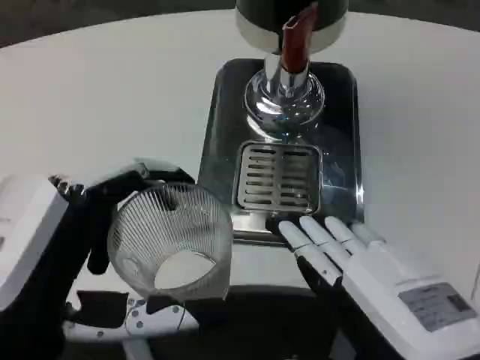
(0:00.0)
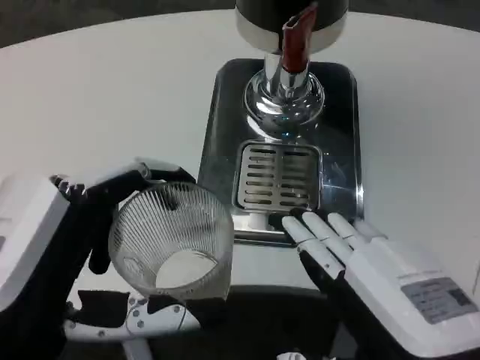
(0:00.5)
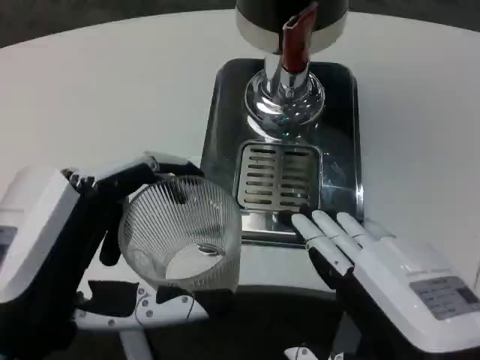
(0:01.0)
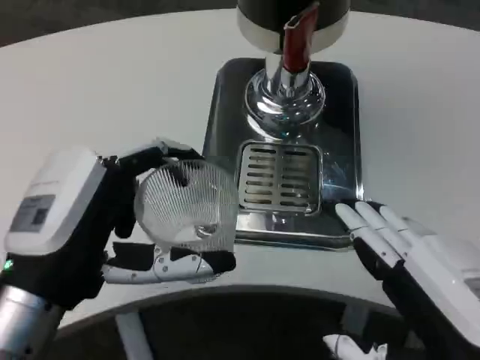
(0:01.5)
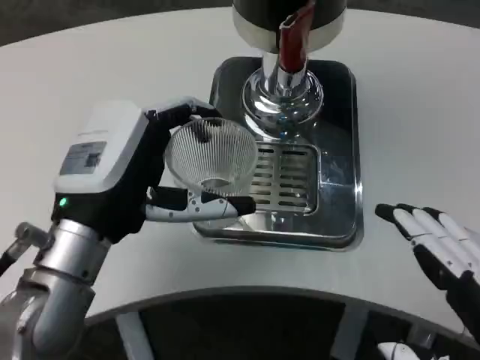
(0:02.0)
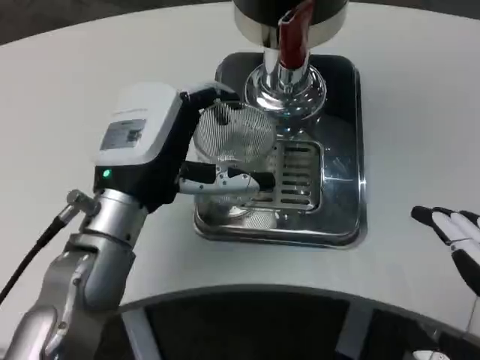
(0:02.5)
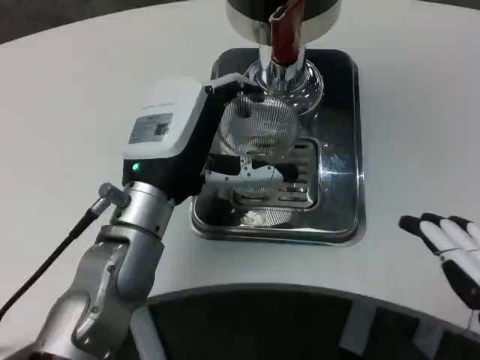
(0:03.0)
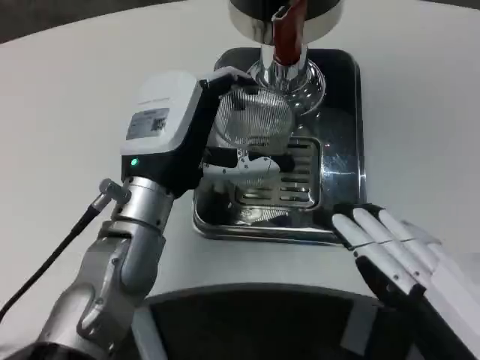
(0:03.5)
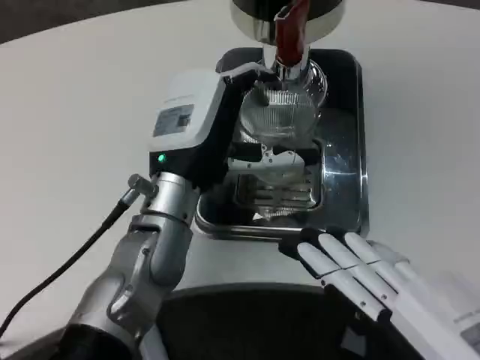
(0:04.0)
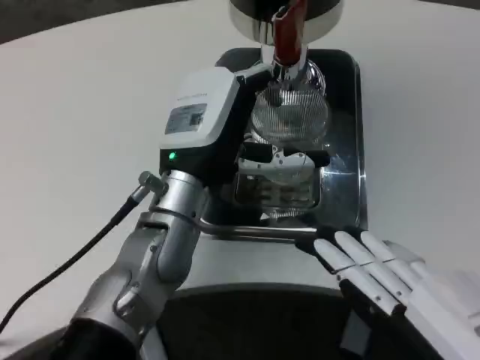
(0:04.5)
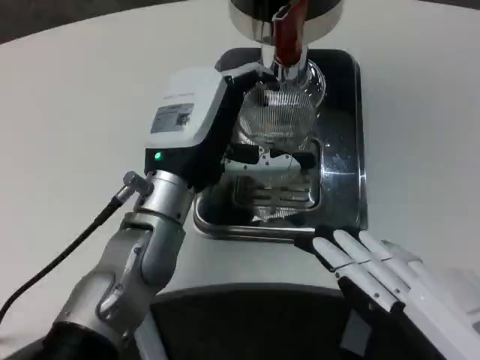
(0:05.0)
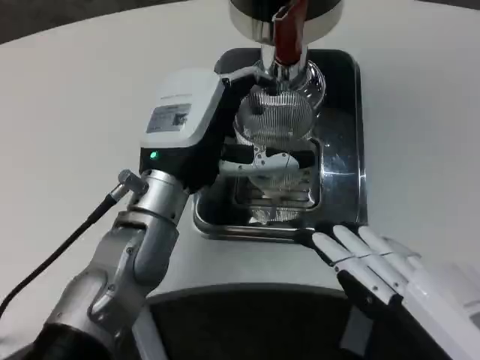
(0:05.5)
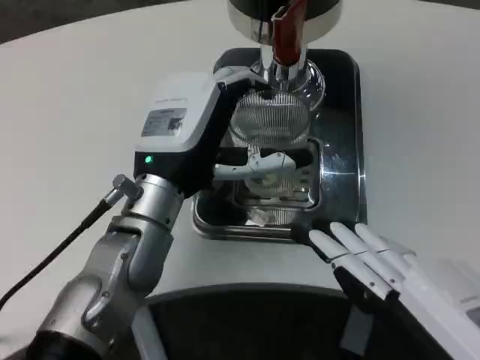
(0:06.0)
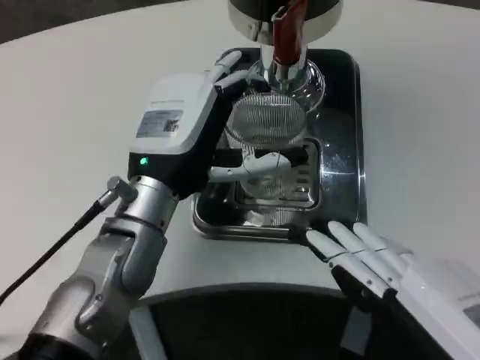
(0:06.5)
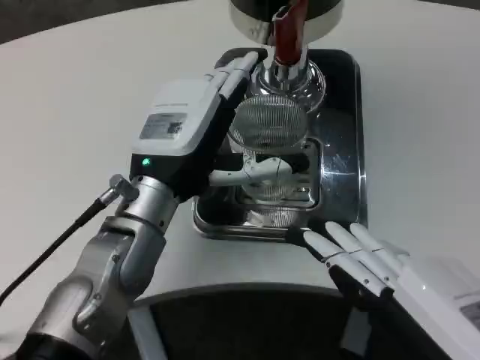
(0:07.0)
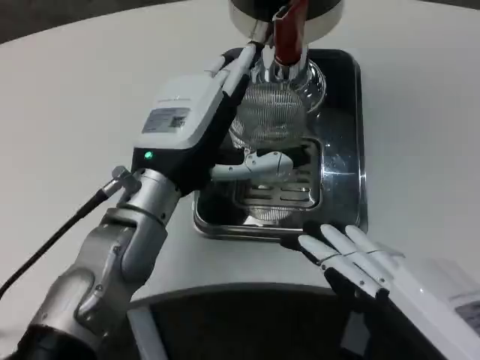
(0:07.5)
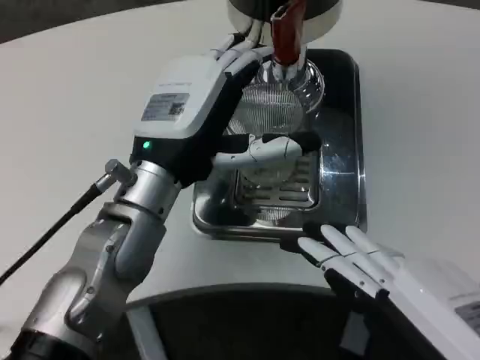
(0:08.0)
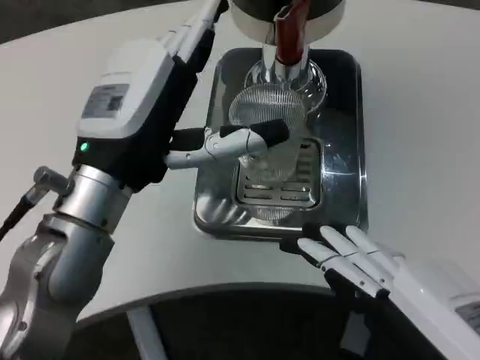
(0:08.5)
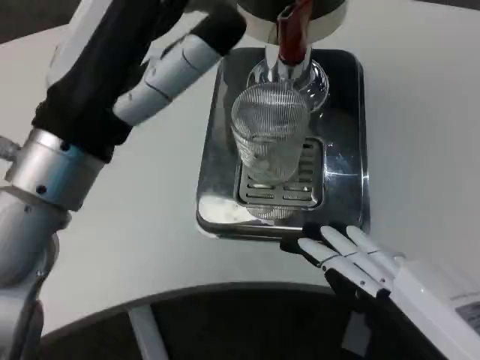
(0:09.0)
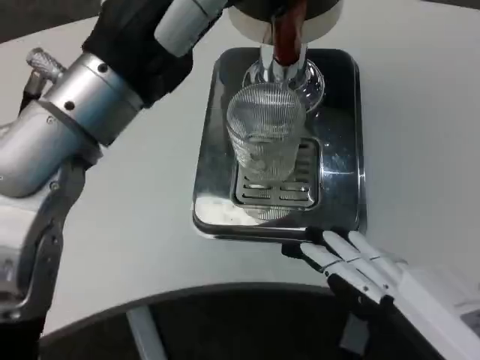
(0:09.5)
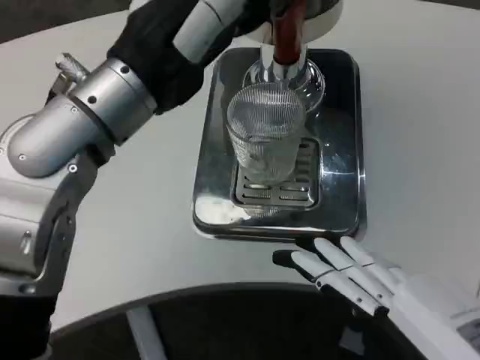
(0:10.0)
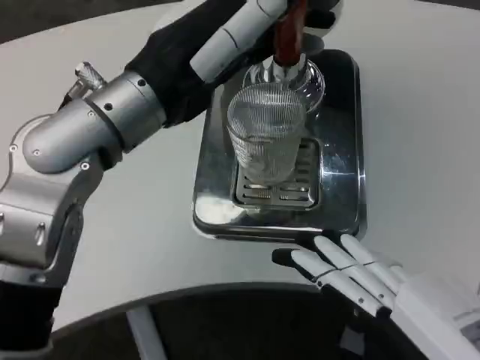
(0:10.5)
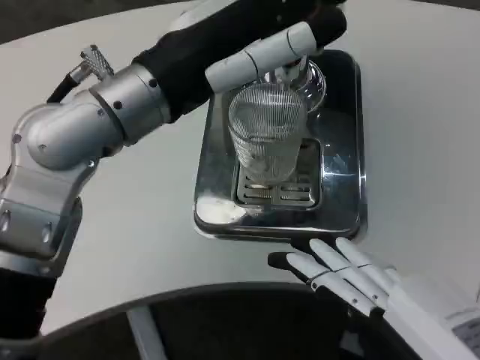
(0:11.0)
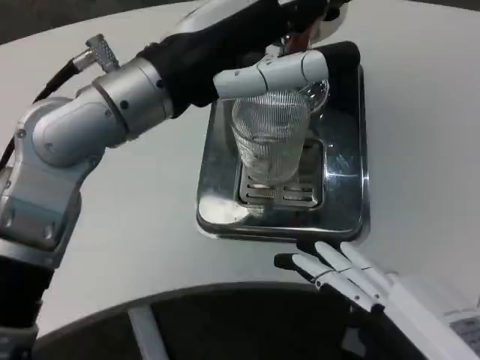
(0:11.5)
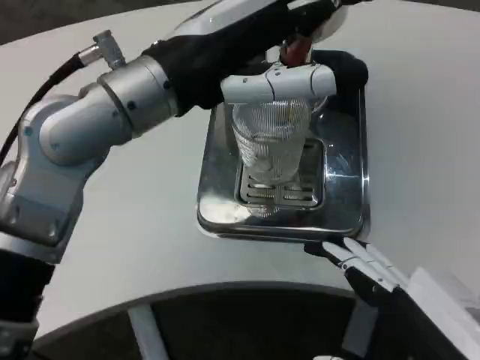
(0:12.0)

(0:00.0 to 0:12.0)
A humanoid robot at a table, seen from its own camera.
Task of the whole recording: Grasp the cup under the faucet to collect the drink, then remove the cup.
0:00.0 - 0:02.0: The left hand heads forward, covering roughly 10 cm, while the right hand moves to the right, some 5 cm.
0:02.0 - 0:04.0: The left hand heads forward and to the right, covering about 10 cm.
0:06.0 - 0:08.0: The hands move only a little.
0:08.0 - 0:10.0: The left hand is displaced upward by about 10 cm.

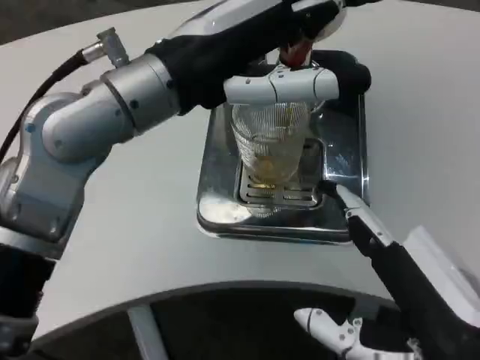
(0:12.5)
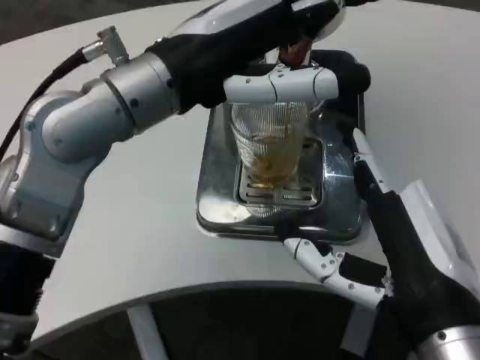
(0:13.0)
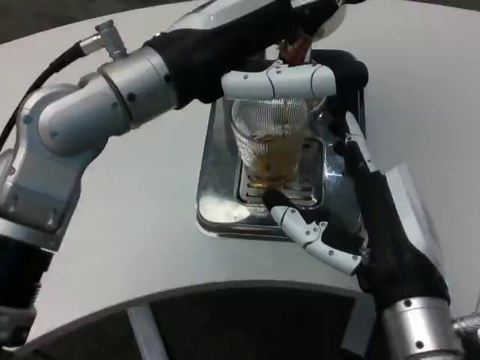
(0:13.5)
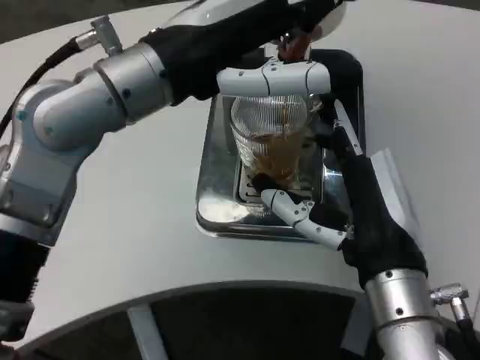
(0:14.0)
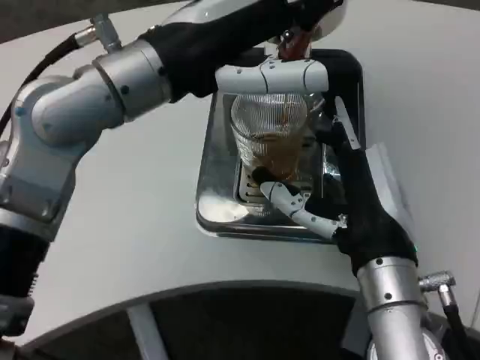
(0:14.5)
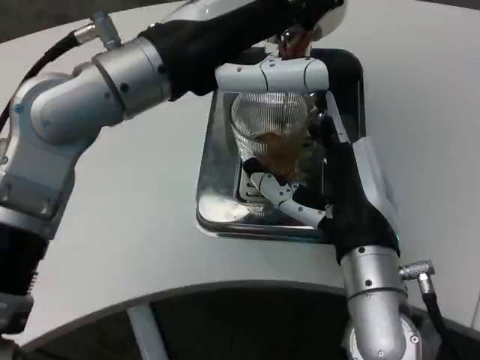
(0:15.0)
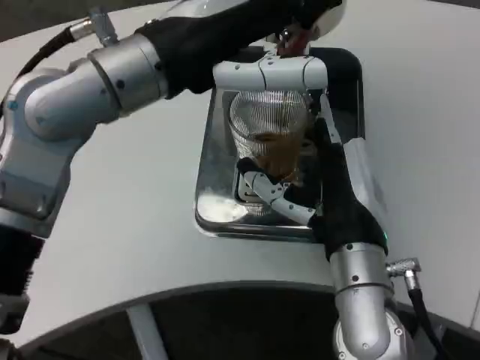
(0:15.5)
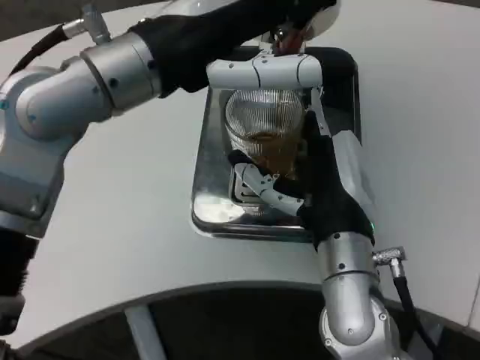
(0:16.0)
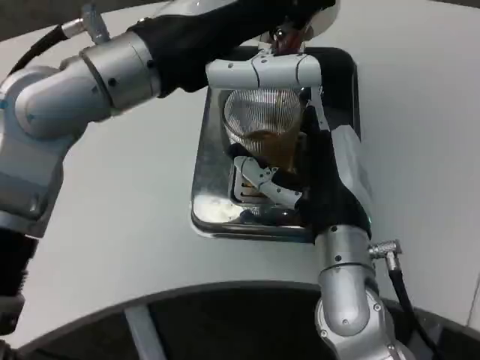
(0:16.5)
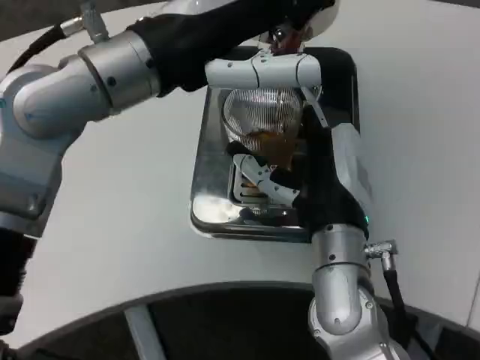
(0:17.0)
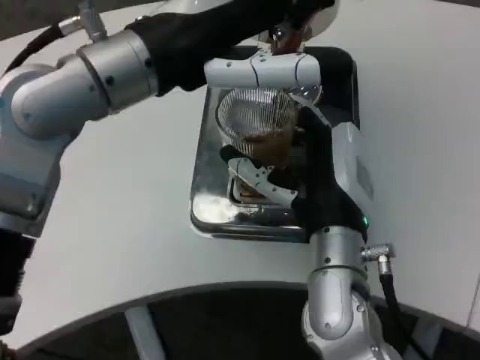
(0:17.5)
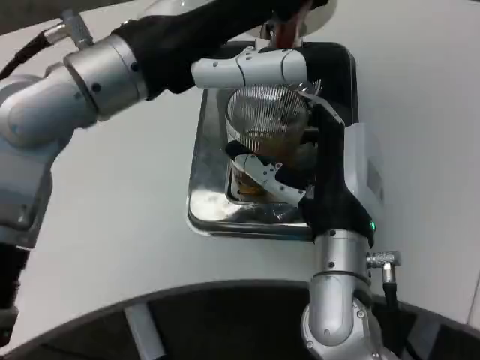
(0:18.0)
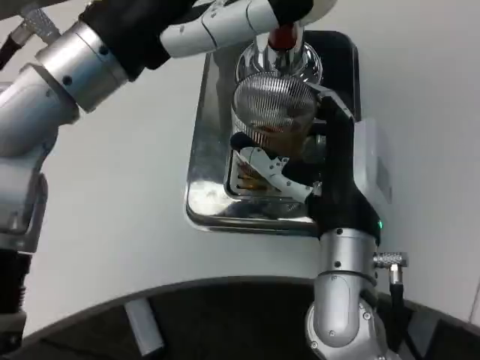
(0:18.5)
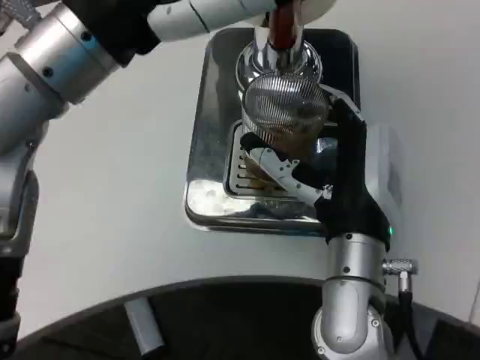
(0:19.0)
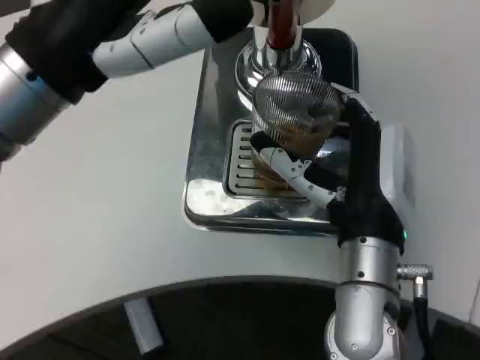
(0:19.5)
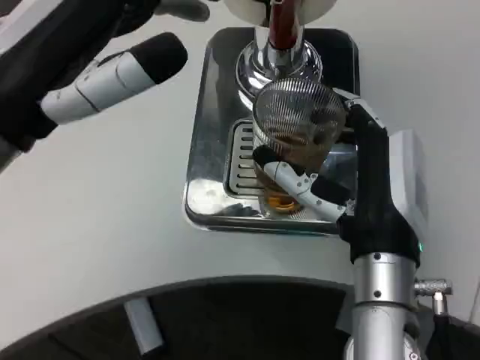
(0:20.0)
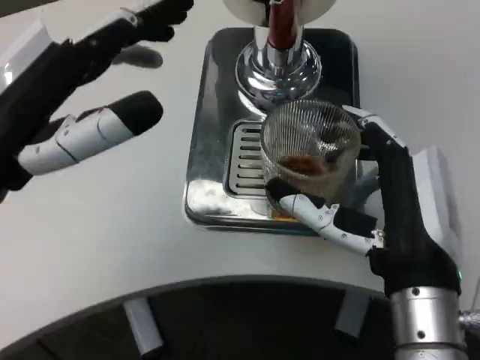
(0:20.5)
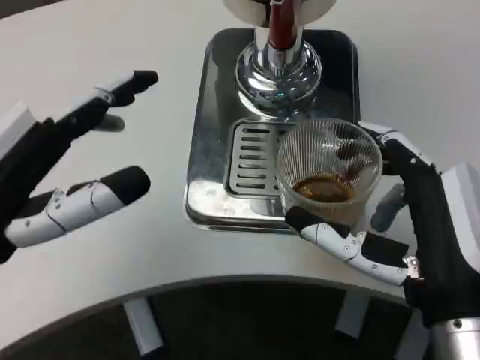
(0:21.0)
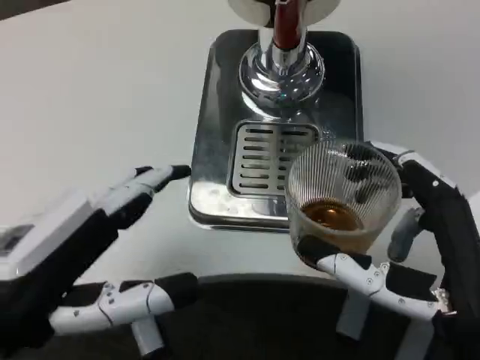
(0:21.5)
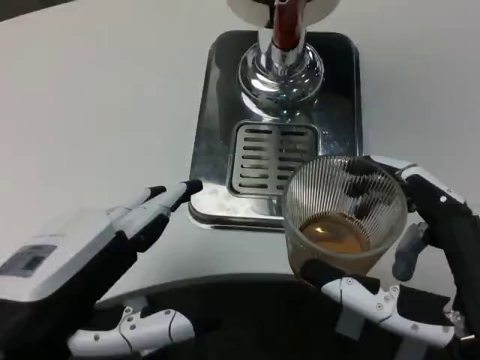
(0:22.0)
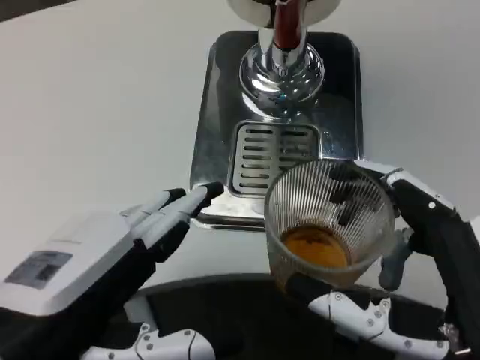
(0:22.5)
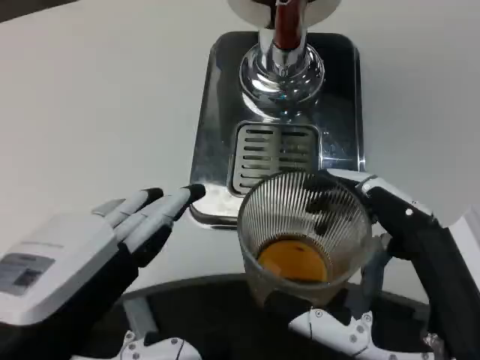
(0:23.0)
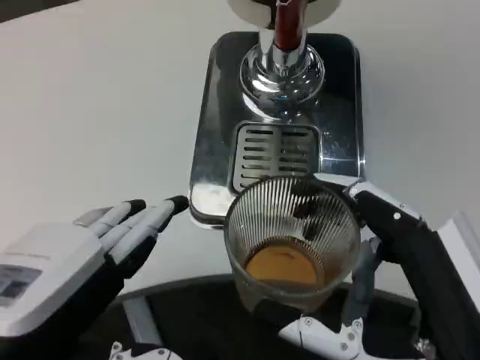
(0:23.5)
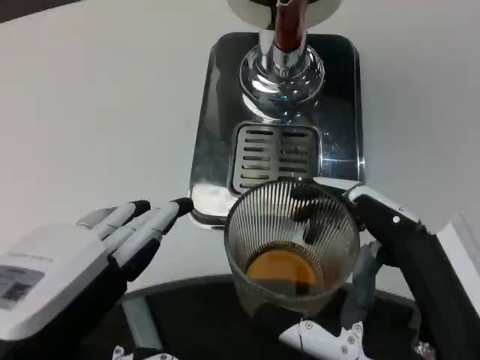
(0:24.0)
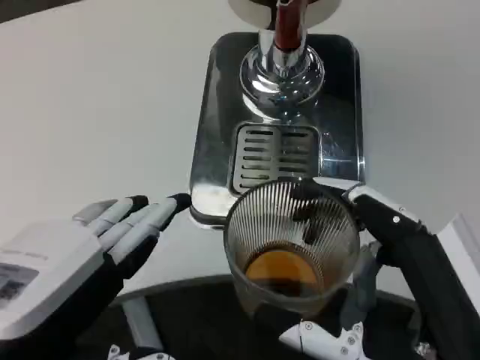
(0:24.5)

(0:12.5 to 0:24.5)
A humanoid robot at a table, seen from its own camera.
Task of the whole recording: Grasp the cup under the faucet to collect the drink, then remove the cup.
0:12.5 - 0:14.5: The right hand heads forward and to the left, covering about 15 cm.
0:14.5 - 0:16.5: The right hand shifts by roughly 5 cm.
0:18.5 - 0:20.5: The left hand travels backward, to the left and downward by about 15 cm, while the right hand shifts some 10 cm backward and to the right.
0:20.5 - 0:22.5: The left hand shifts approximately 10 cm backward and downward, while the right hand shifts some 10 cm backward.

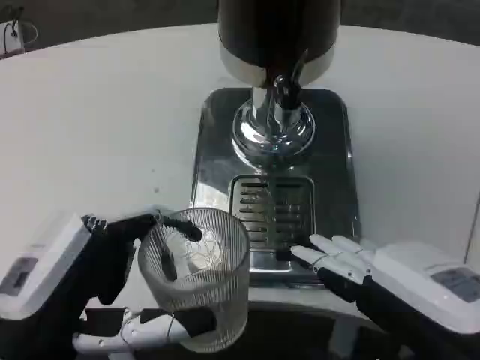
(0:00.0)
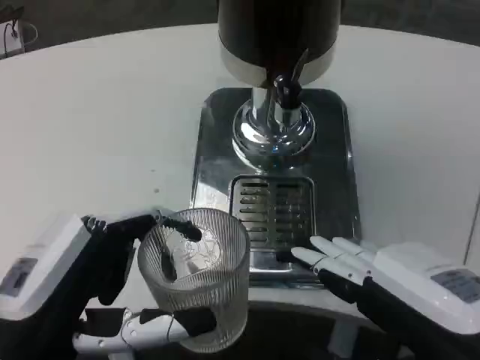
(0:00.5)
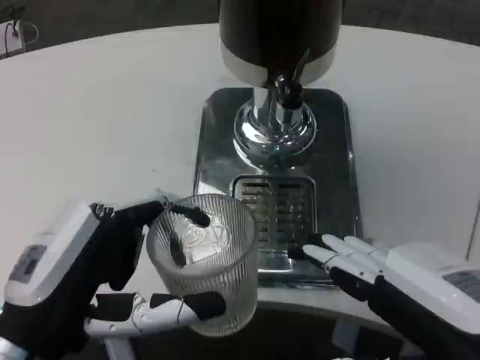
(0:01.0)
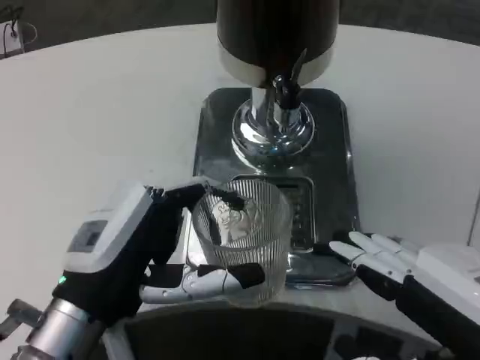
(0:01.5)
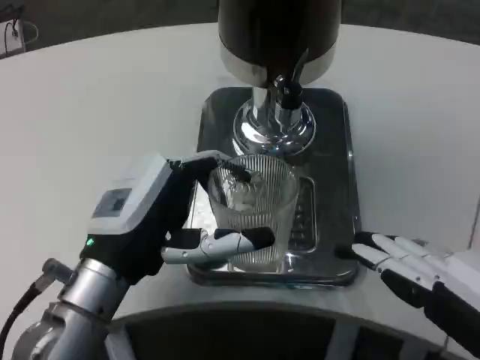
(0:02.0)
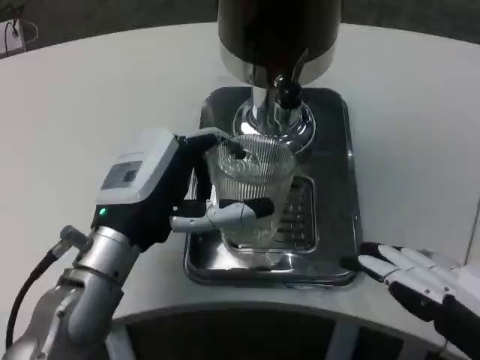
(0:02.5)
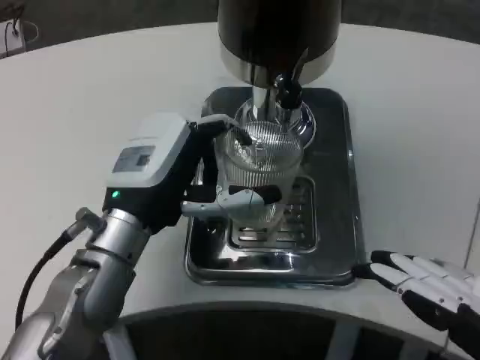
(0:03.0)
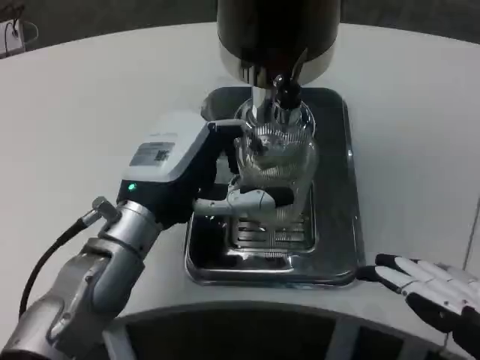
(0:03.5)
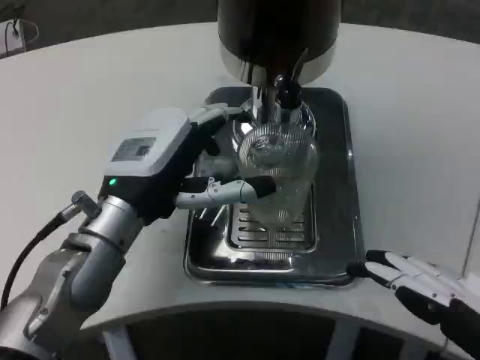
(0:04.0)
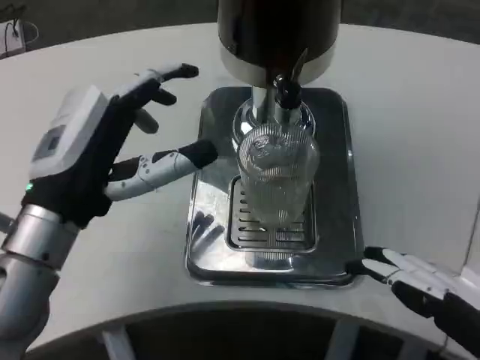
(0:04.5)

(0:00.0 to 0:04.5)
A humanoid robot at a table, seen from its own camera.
Task of the whole recording: Grasp the cup under the faucet to collect the drink, then remove the cup.
0:00.0 - 0:02.0: The left hand goes approximately 10 cm forward.
0:02.0 - 0:04.5: The left hand shifts by approximately 5 cm.
